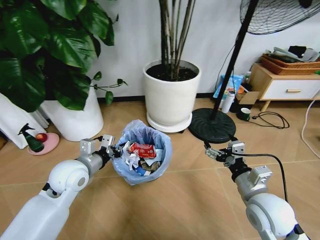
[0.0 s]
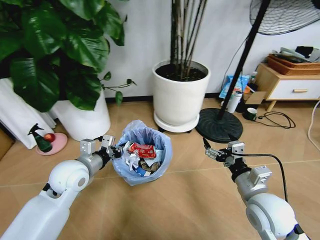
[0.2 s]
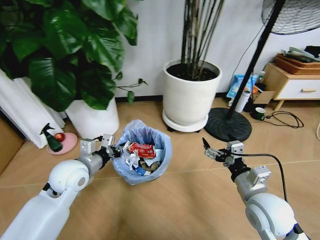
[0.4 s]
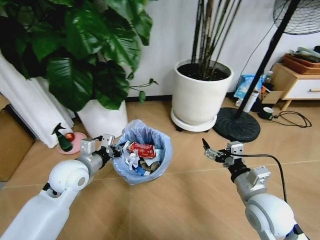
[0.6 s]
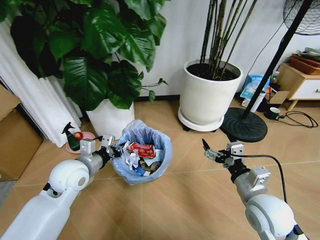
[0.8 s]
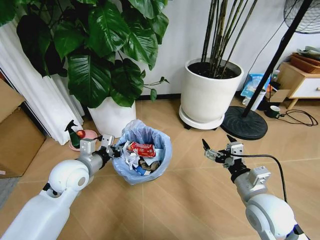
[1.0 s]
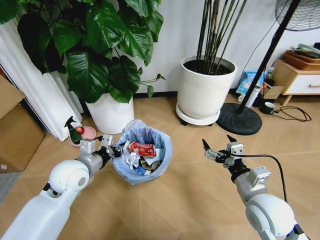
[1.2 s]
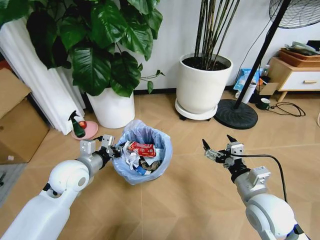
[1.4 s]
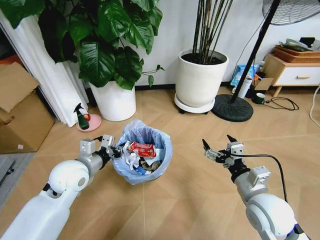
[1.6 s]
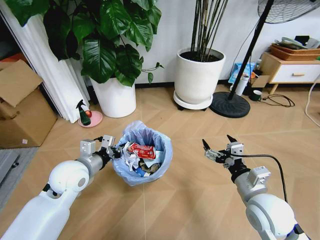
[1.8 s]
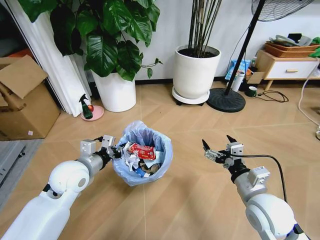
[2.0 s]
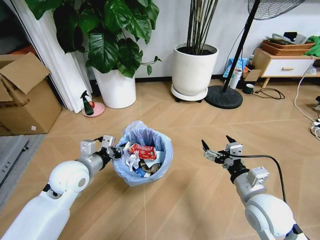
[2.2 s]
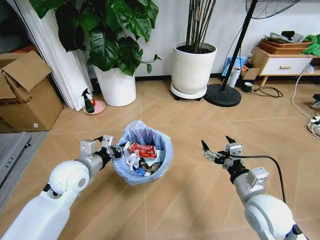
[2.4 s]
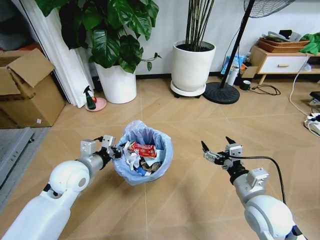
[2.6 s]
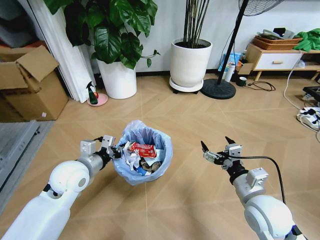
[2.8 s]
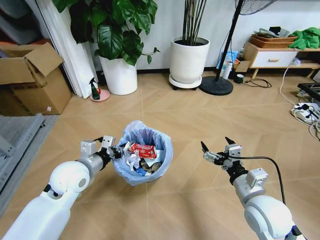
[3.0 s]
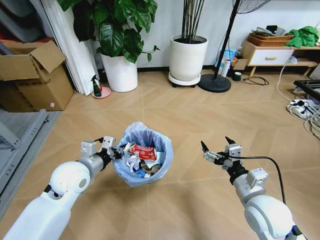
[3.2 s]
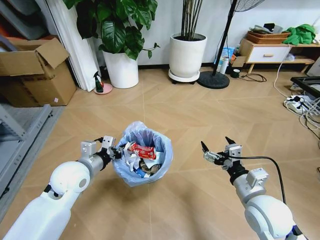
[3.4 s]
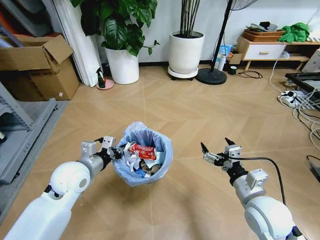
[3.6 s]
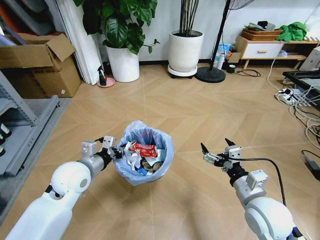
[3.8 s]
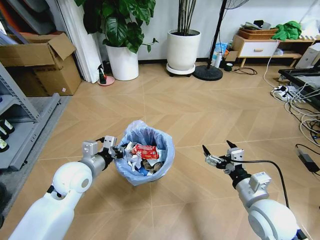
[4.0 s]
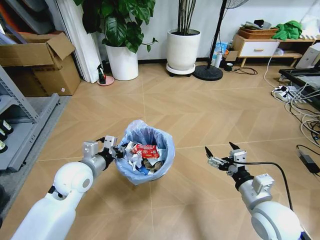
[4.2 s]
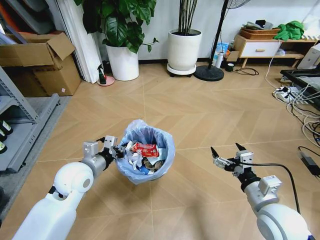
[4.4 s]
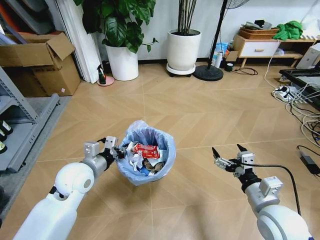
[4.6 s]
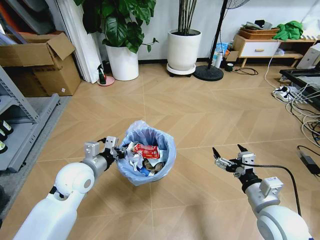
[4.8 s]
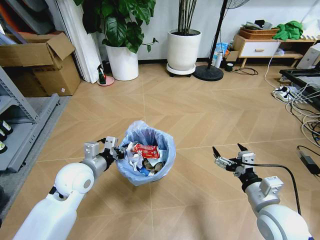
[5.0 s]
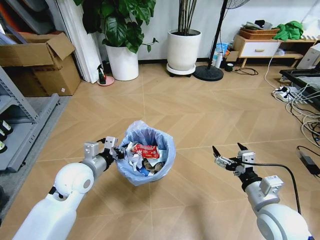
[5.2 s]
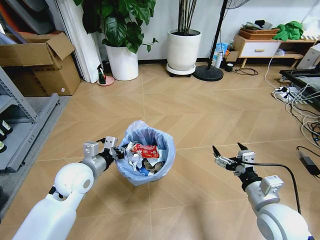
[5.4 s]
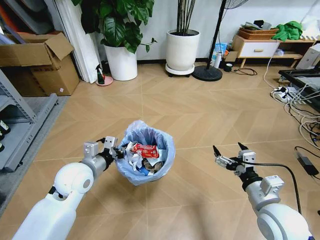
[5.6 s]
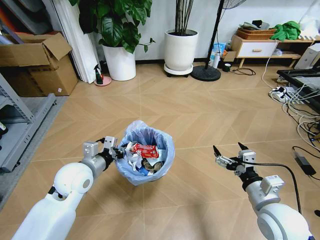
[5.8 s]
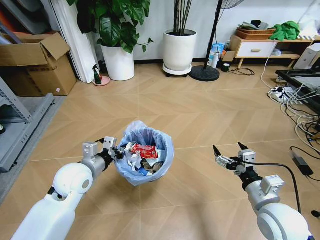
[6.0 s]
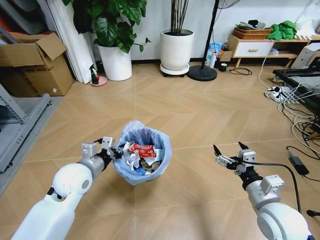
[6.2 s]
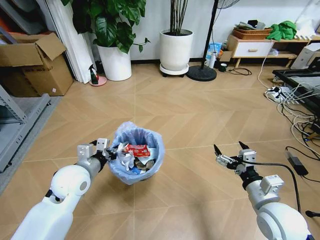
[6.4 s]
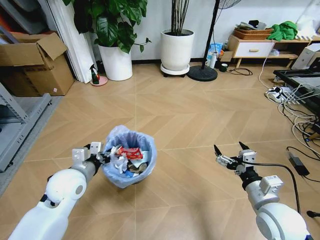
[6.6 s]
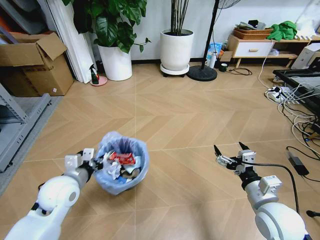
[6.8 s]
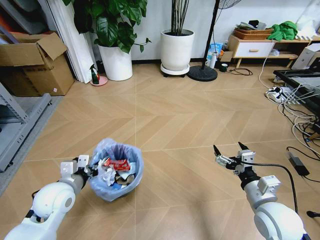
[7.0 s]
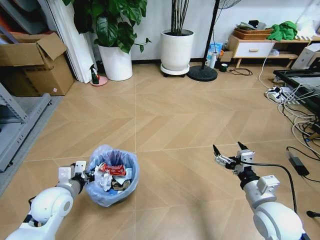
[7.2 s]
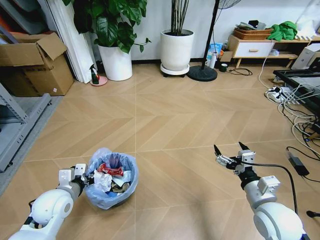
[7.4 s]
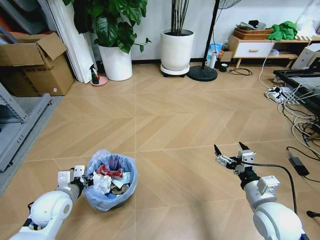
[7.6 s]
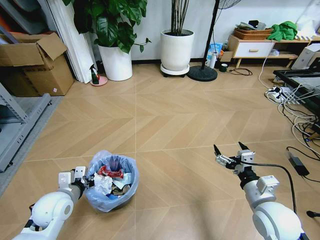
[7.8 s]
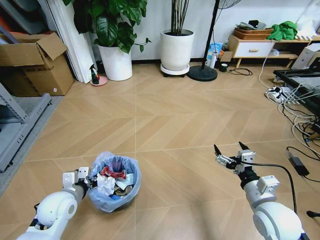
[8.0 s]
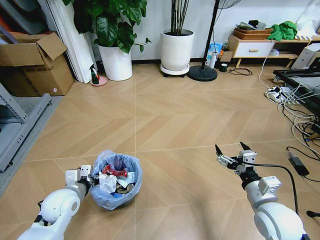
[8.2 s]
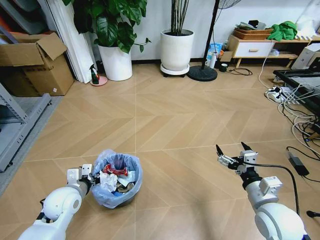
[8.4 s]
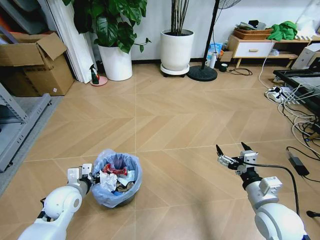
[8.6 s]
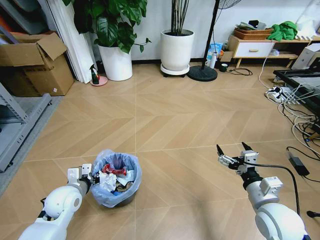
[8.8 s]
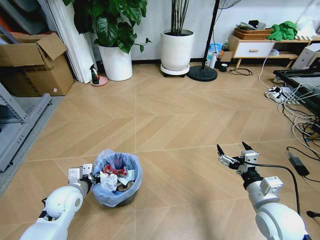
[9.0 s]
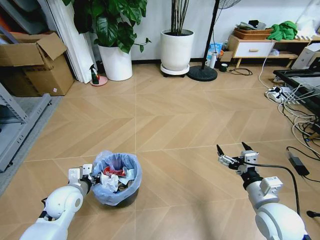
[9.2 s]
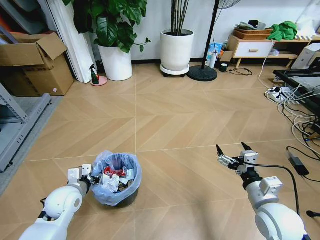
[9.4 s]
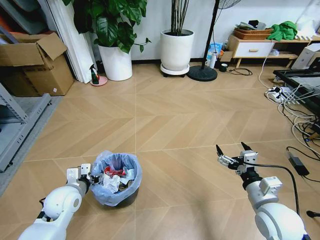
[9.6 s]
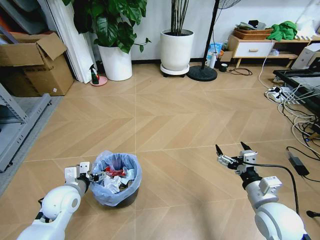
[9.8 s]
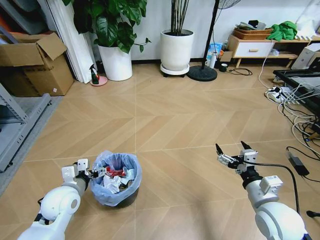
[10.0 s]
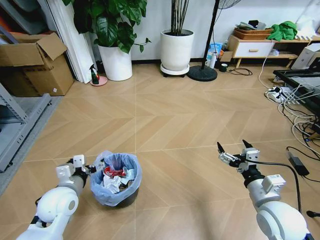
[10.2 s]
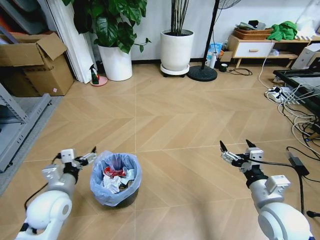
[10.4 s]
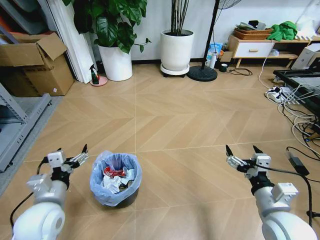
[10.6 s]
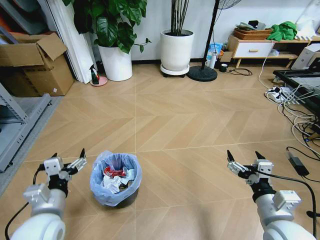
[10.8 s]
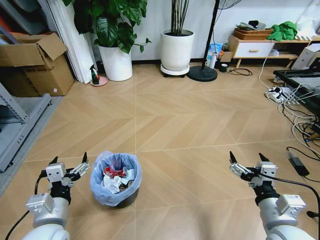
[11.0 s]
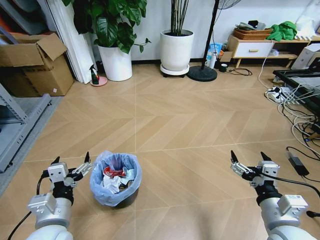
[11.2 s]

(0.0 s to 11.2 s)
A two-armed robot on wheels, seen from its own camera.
Task of the whole recording: Pick up the trash bin and place the garbage on the floor into it.
6.4 s - 8.0 s: The left gripper heads downward and to the left, covering about 10 cm.
8.0 s - 9.6 s: The left gripper opens.
9.6 s - 11.2 s: The right gripper heads backward, covering about 5 cm. Meanwhile the left gripper travels backward and upward by about 15 cm.

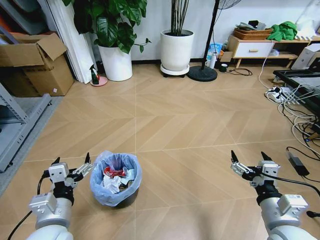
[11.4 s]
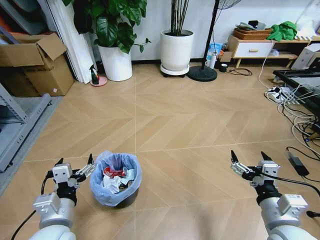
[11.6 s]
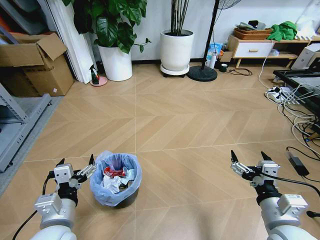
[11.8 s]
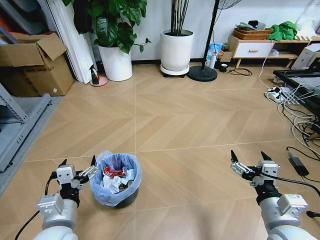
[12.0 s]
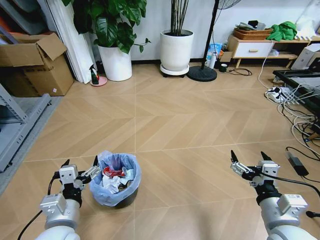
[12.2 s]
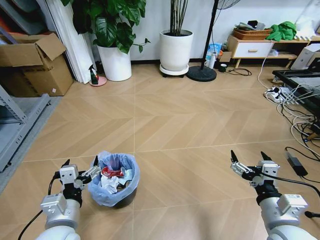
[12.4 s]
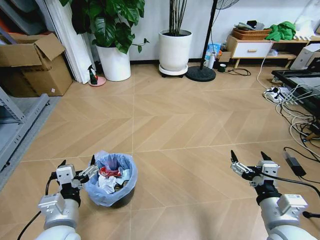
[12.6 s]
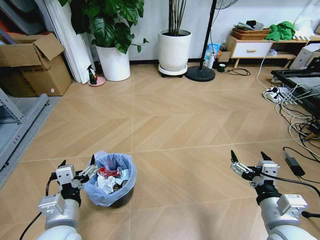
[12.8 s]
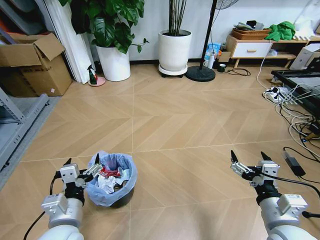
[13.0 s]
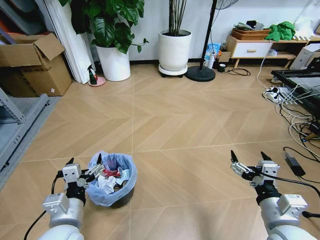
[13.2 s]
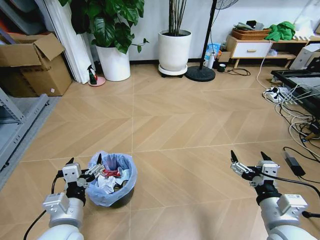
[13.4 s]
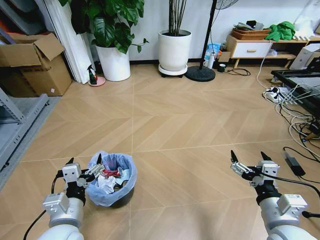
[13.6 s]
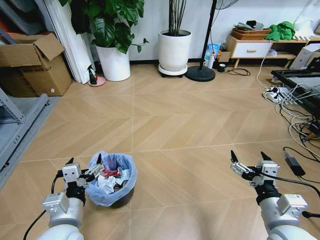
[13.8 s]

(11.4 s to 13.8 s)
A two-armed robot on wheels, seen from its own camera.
Task of the whole recording: Pick up the trash bin and place the garbage on the floor into it.
11.4 s - 12.6 s: The grippers move only a little.
12.6 s - 13.8 s: The two grippers keep their place.

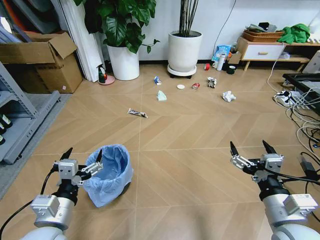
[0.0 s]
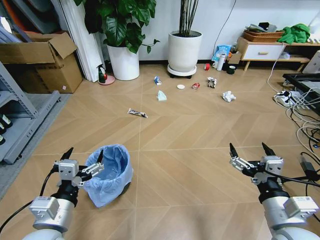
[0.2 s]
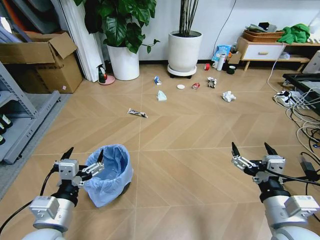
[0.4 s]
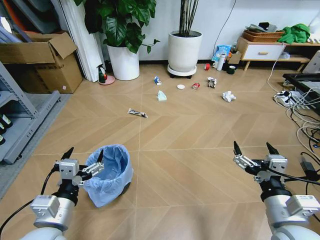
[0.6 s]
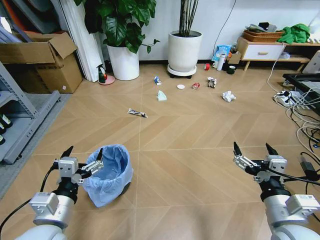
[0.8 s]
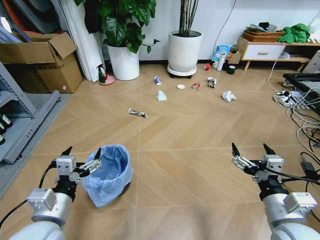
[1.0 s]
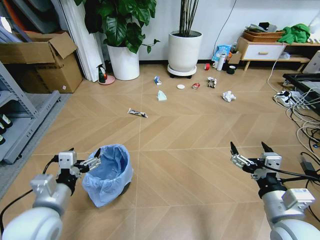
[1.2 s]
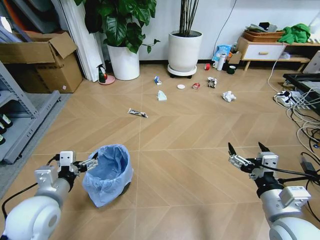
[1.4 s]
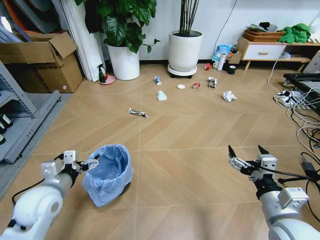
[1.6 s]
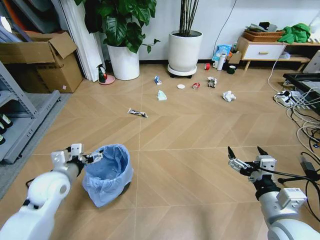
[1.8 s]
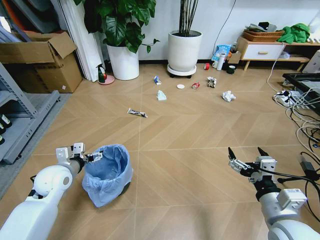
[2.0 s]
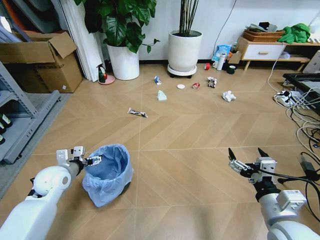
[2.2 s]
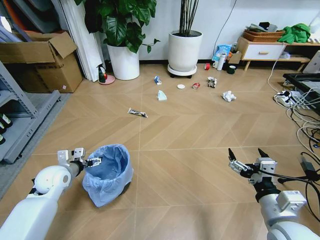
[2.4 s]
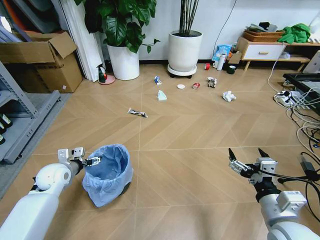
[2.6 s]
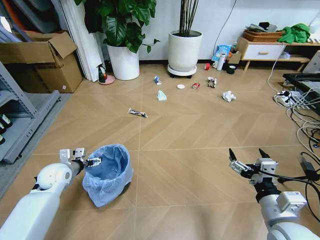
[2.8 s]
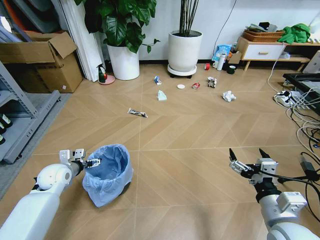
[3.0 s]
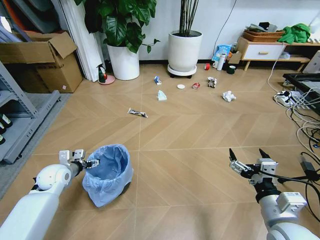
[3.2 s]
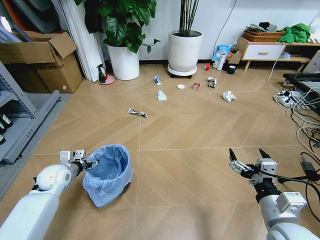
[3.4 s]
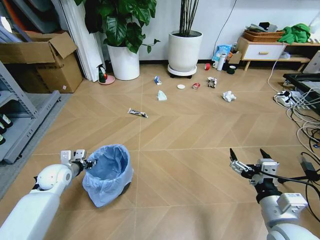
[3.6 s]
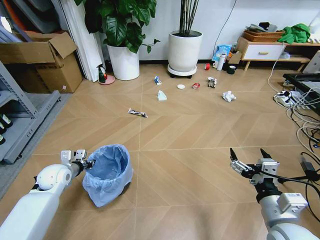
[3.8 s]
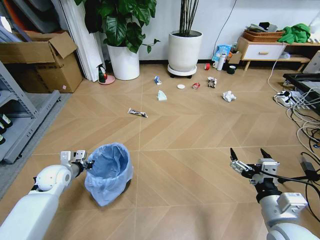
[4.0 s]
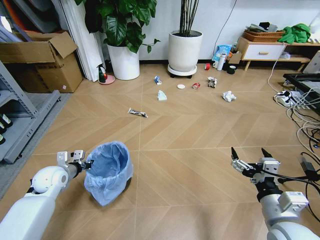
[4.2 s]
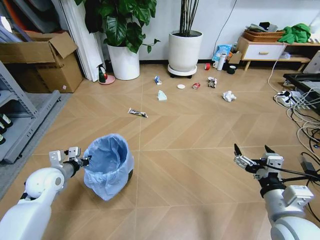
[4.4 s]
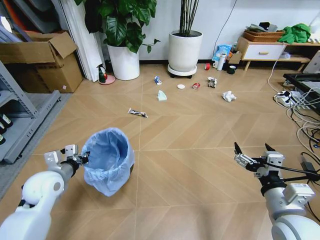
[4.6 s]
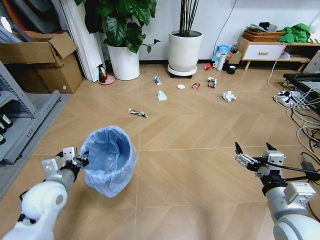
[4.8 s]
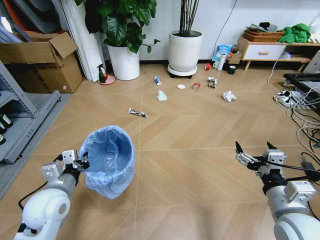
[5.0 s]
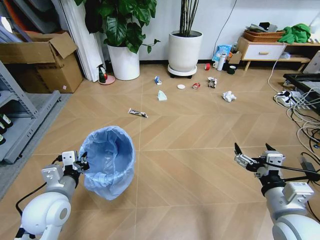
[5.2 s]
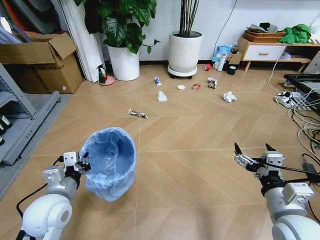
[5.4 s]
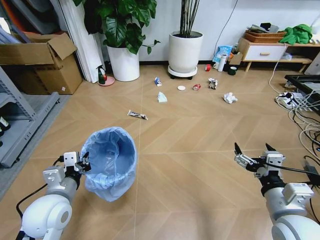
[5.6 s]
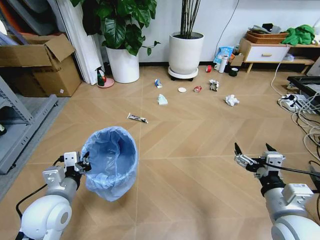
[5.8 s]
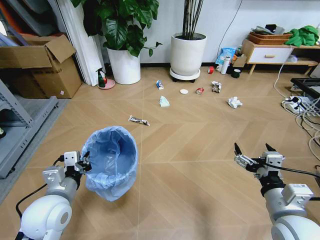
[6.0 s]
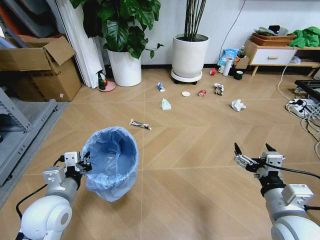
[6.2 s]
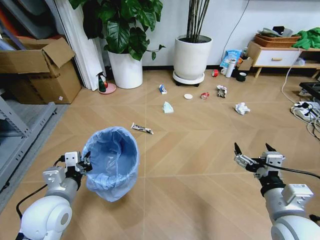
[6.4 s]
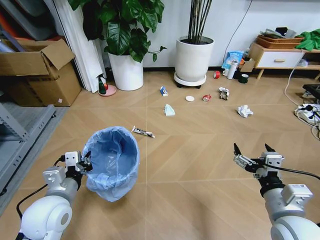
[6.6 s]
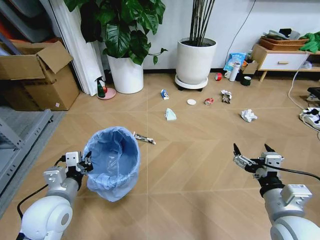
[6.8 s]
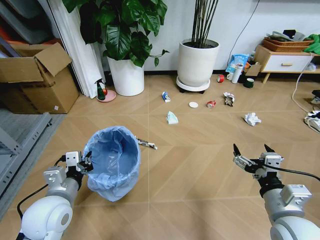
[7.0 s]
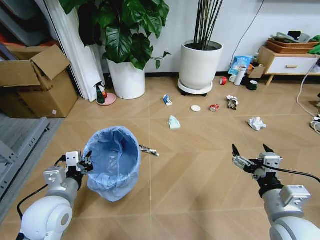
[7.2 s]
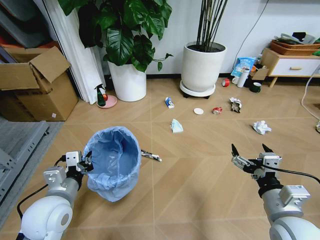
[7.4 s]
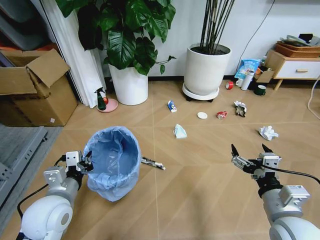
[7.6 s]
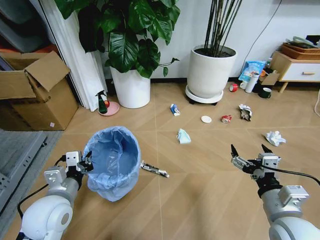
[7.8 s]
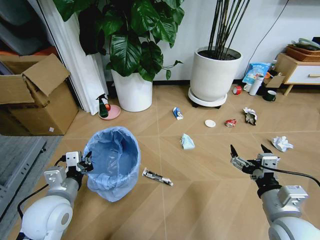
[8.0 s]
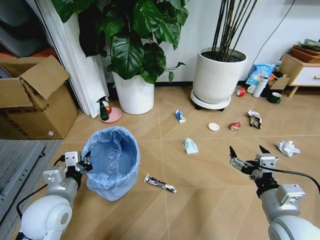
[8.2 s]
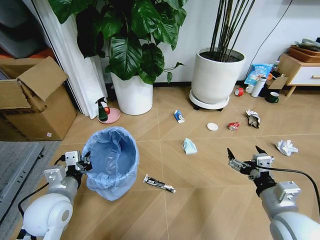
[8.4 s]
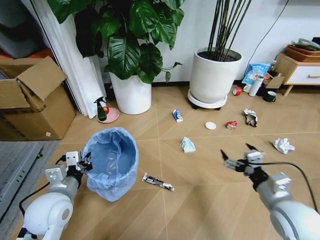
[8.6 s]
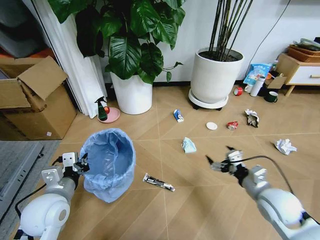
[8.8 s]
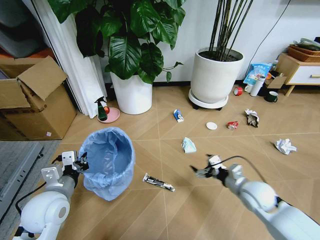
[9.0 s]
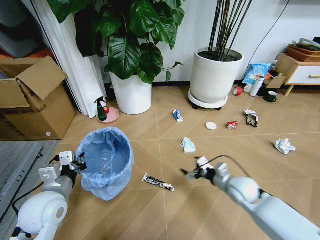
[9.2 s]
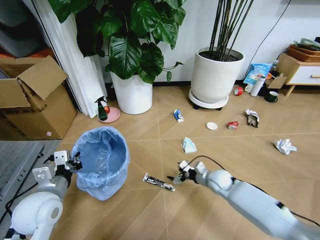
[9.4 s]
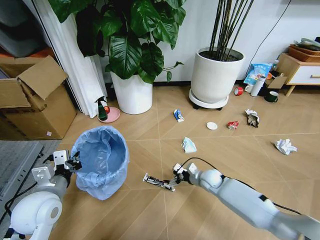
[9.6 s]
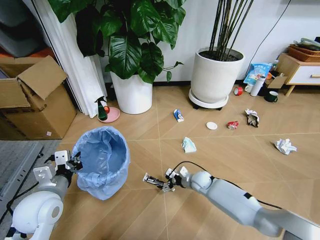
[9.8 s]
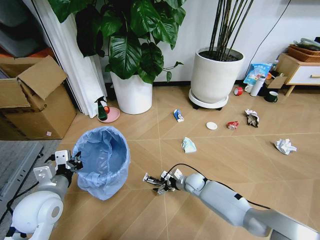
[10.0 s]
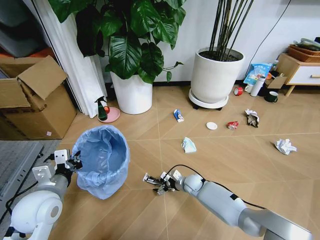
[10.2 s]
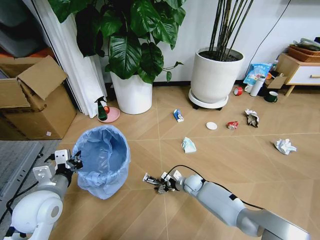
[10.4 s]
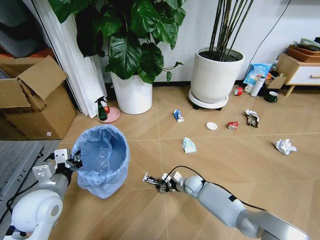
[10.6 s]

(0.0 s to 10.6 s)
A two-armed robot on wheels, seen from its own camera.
Task of the whole recording: Pick up the trash bin and place the garbage on the floor into it.
1.6 s - 3.0 s: The left gripper is displaced forward, downward and to the left by roughly 15 cm.
3.0 s - 4.6 s: The left gripper travels backward and upward by roughly 10 cm, and closes up.
4.6 s - 6.0 s: The left gripper is displaced backward and to the right by about 10 cm.
7.6 s - 9.0 s: The right gripper moves forward and downward, some 15 cm.
9.0 s - 10.6 s: The right gripper shifts about 30 cm downward, to the left and forward, and closes up.
